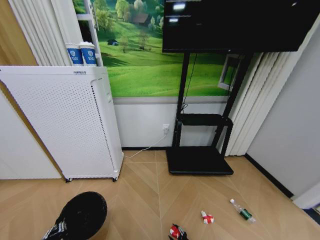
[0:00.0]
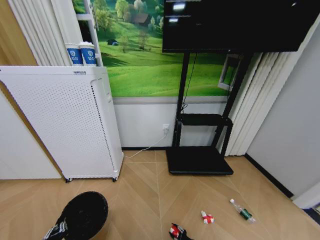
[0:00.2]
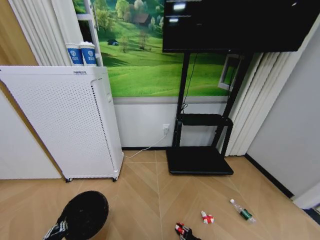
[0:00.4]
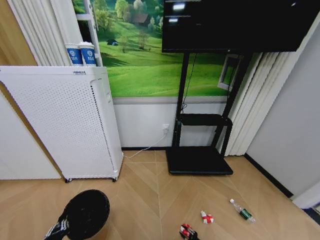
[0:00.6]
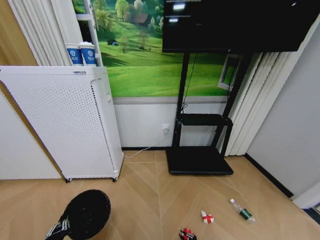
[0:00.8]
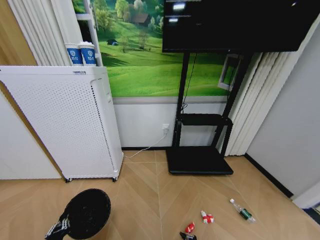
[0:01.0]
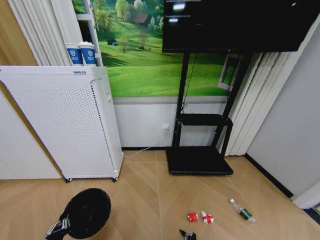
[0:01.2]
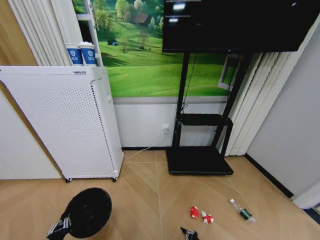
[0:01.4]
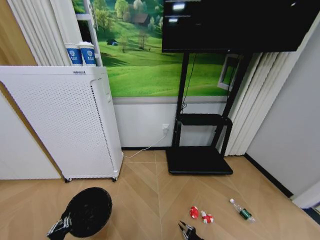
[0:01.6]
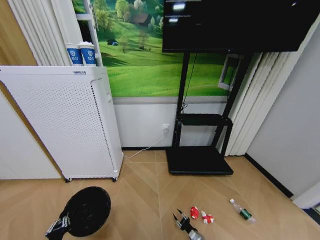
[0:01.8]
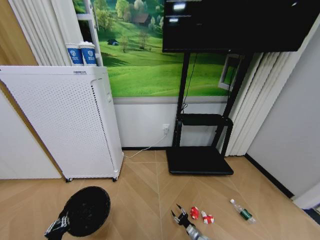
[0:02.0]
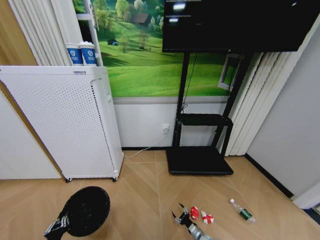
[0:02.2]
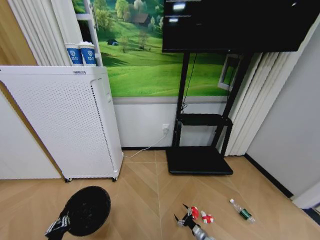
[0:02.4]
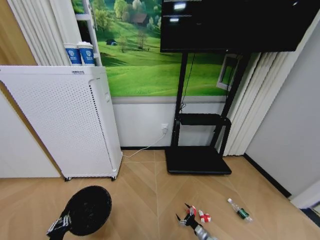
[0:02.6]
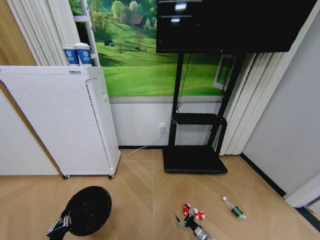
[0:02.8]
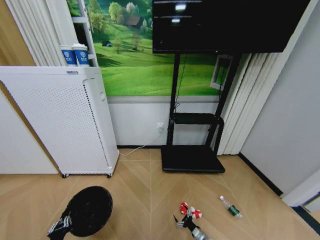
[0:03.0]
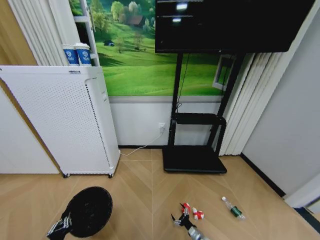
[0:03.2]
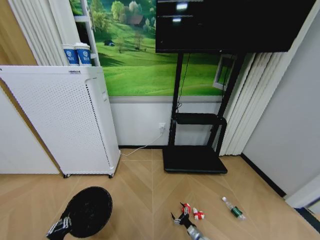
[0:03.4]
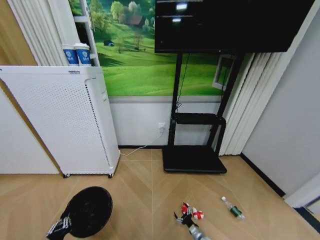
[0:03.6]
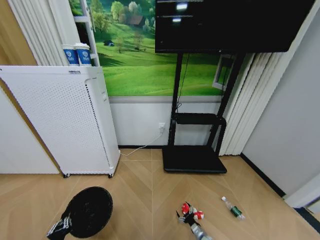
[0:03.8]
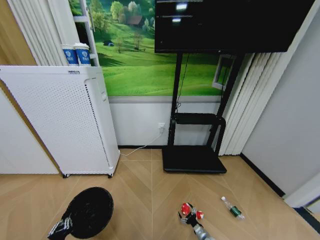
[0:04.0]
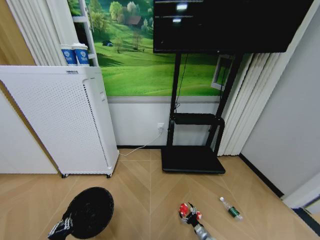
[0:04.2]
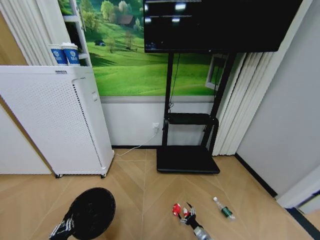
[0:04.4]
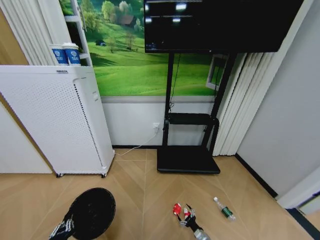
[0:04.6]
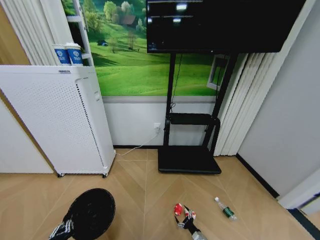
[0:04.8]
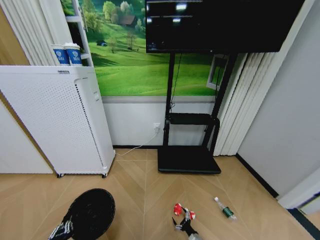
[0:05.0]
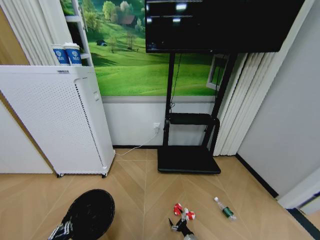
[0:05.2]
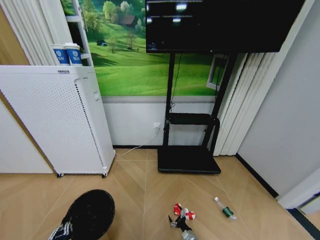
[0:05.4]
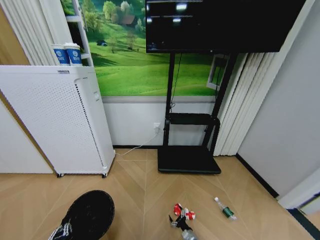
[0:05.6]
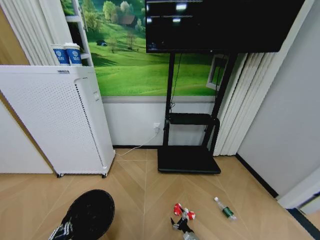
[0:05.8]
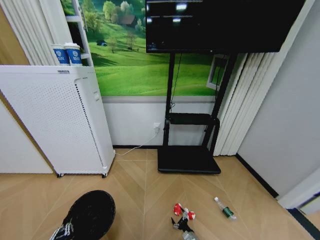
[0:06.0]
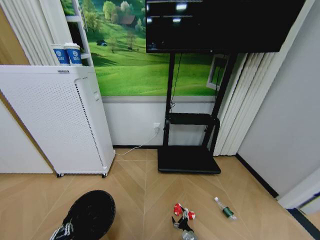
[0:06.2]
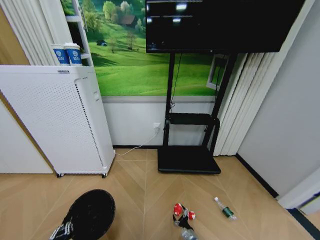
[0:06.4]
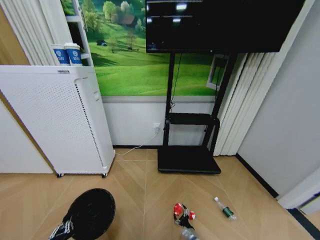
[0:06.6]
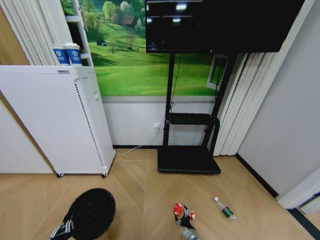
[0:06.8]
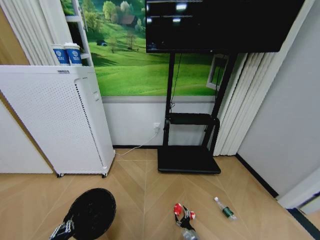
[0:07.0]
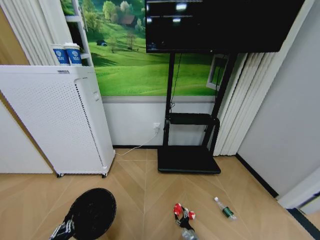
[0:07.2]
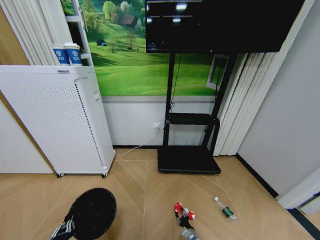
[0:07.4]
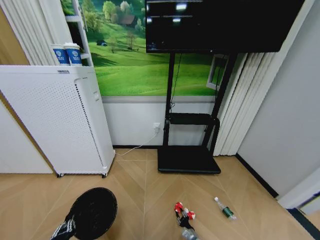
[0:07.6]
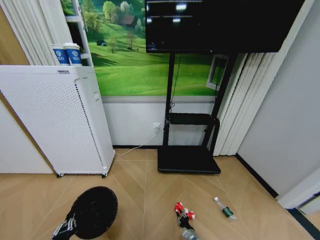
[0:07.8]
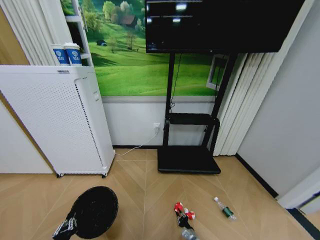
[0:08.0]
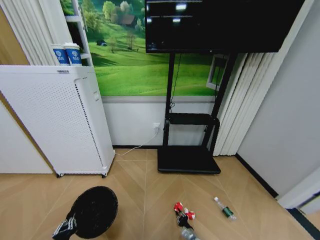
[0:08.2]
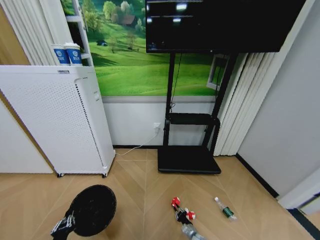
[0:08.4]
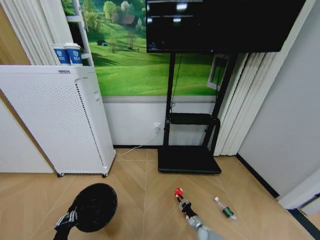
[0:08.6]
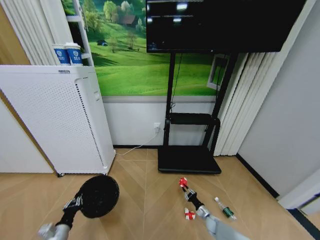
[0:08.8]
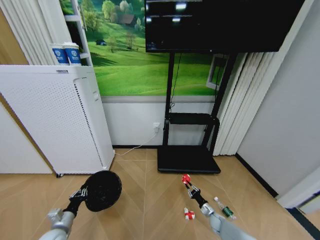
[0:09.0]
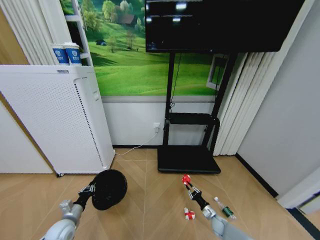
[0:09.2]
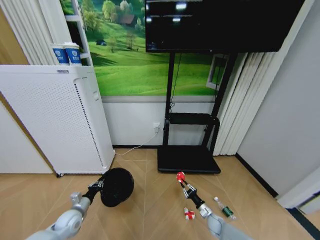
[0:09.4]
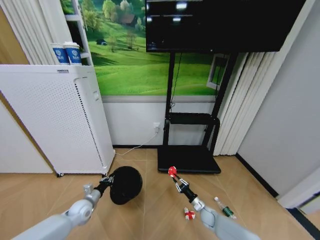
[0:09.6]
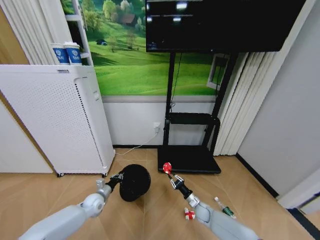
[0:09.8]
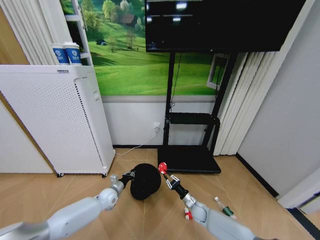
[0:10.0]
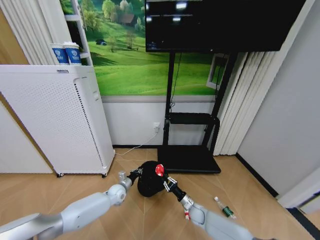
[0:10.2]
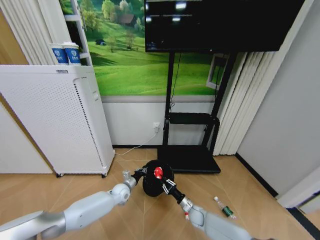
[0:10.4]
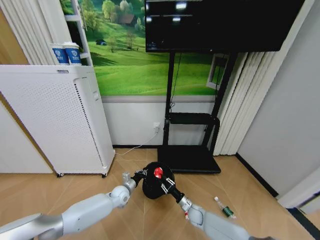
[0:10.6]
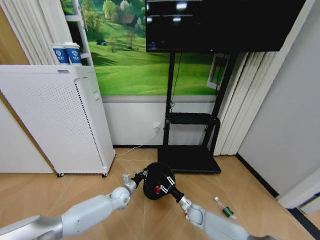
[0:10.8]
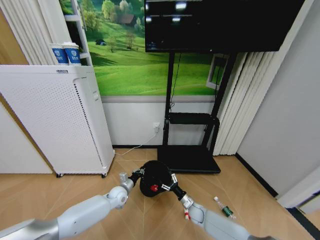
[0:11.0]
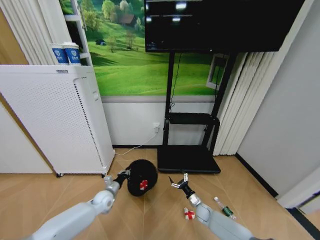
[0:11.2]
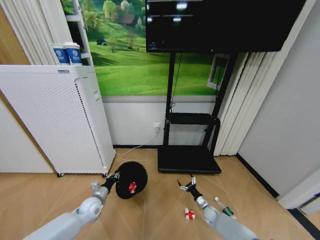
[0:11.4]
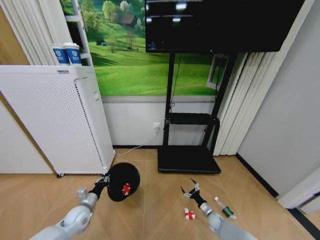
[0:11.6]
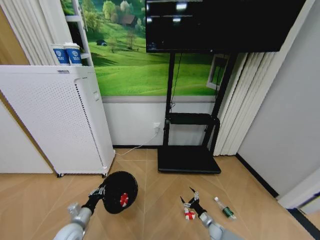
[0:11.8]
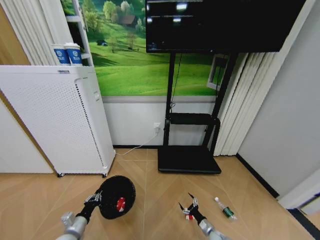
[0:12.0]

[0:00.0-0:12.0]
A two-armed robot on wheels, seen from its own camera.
Task of the whole recording: Pick up the trash bin and place the garbage on the floor into it.
0:00.0 to 0:01.6: The right gripper closes up.
0:01.6 to 0:03.0: The right gripper shifts some 5 cm forward, and opens up.
0:04.4 to 0:06.0: The right gripper is displaced to the left by approximately 5 cm.
0:06.0 to 0:07.6: The right gripper closes up.
0:07.6 to 0:09.0: The right gripper shifts roughly 20 cm to the right, forward and upward, and closes its fingers; the left gripper is displaced forward by approximately 15 cm.
0:09.0 to 0:10.4: The left gripper goes some 30 cm to the right and forward. The right gripper moves to the left and upward, some 15 cm.
0:10.4 to 0:12.0: The right gripper heads to the right, downward and backward, covering some 20 cm, and opens its fingers. The left gripper goes about 25 cm backward and to the left.

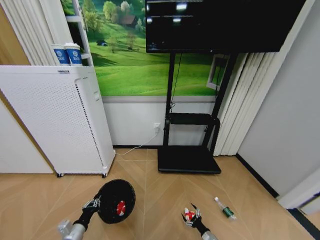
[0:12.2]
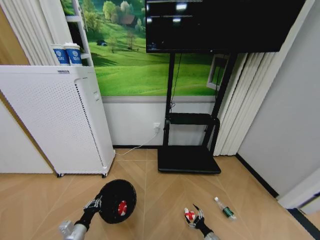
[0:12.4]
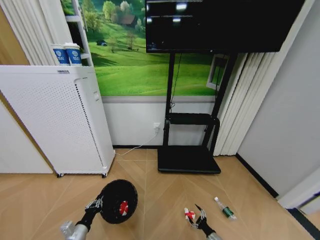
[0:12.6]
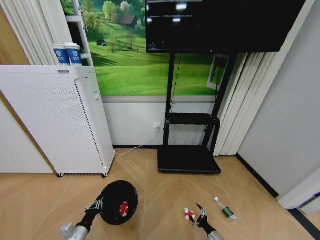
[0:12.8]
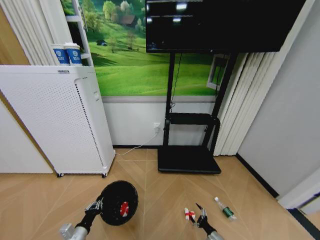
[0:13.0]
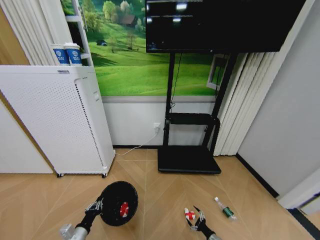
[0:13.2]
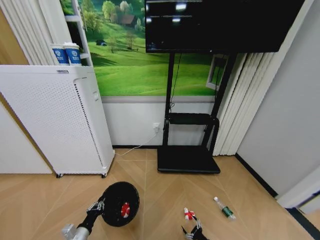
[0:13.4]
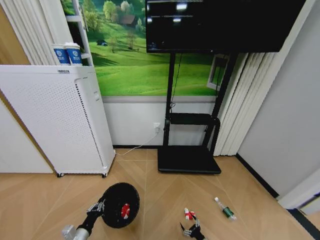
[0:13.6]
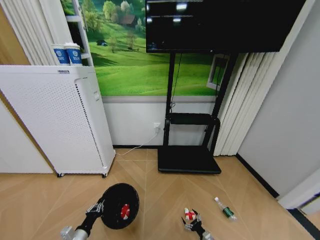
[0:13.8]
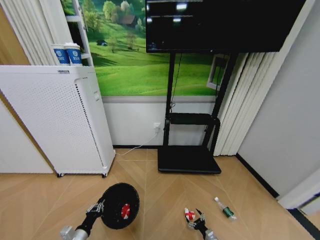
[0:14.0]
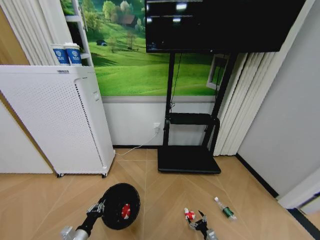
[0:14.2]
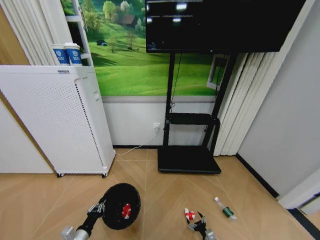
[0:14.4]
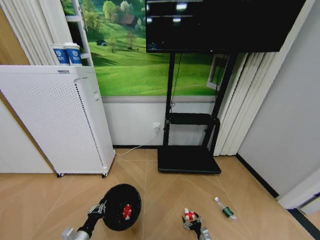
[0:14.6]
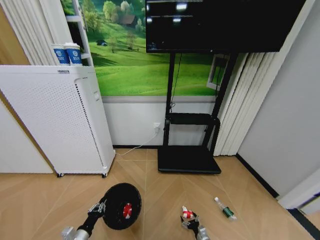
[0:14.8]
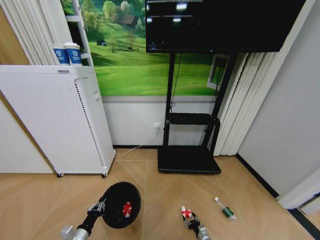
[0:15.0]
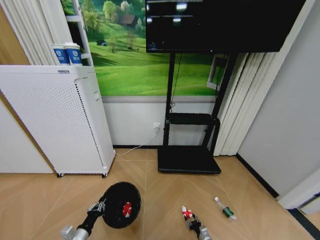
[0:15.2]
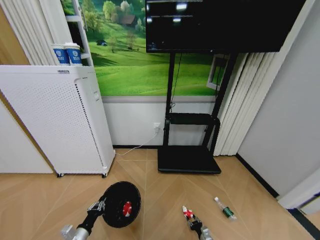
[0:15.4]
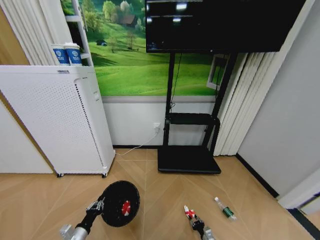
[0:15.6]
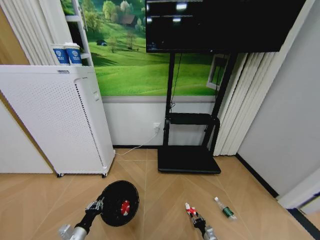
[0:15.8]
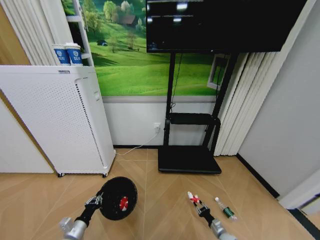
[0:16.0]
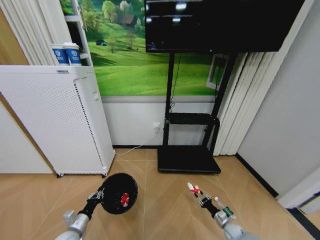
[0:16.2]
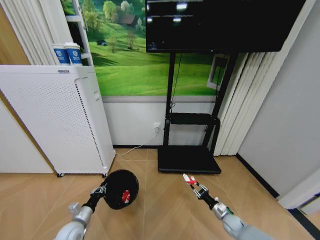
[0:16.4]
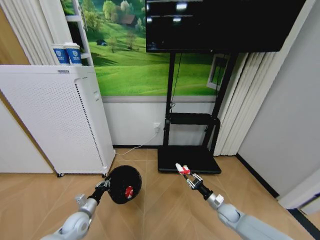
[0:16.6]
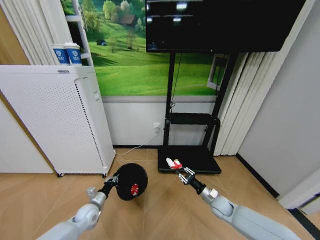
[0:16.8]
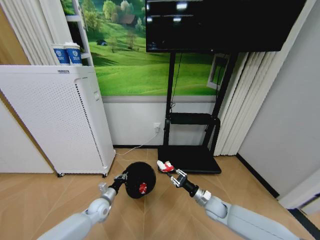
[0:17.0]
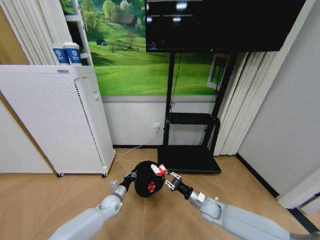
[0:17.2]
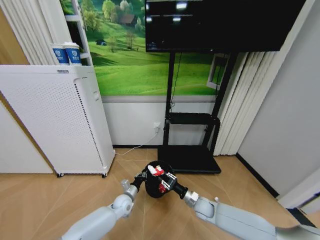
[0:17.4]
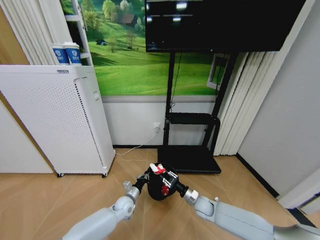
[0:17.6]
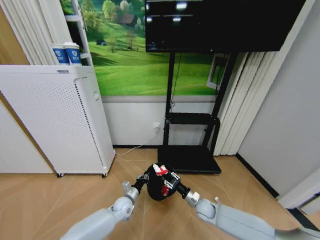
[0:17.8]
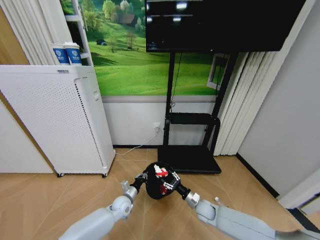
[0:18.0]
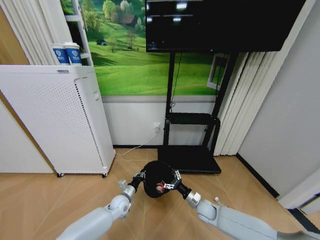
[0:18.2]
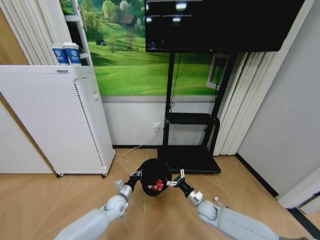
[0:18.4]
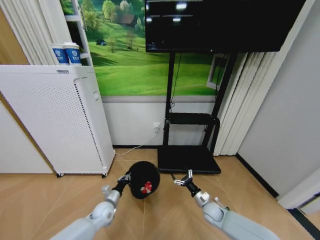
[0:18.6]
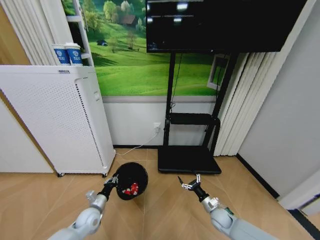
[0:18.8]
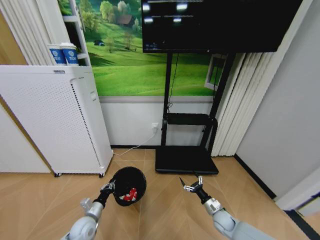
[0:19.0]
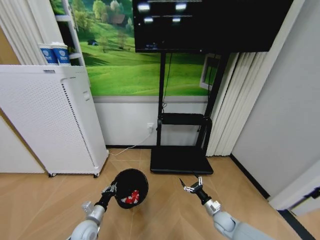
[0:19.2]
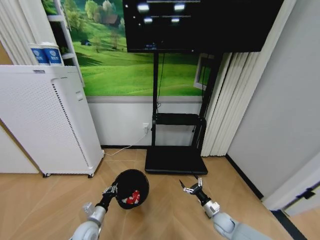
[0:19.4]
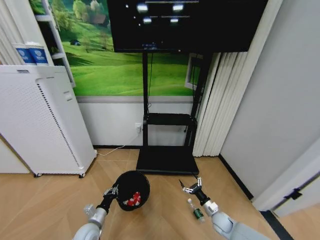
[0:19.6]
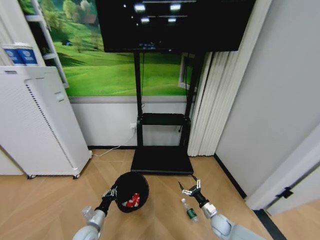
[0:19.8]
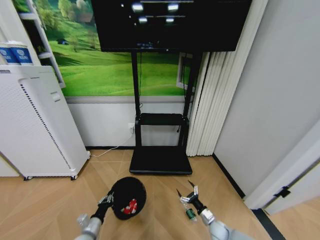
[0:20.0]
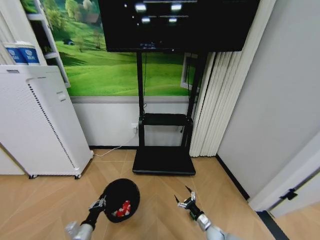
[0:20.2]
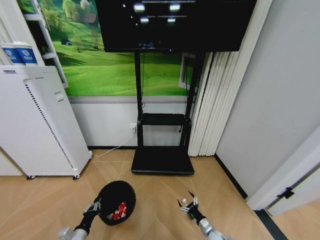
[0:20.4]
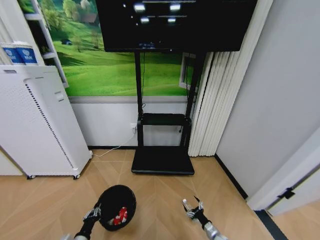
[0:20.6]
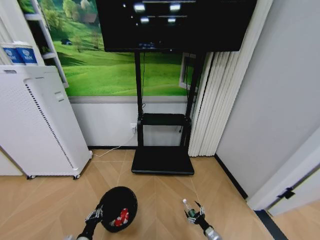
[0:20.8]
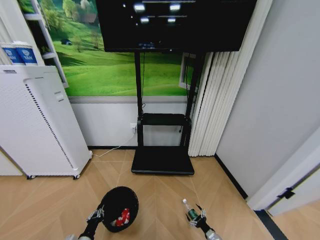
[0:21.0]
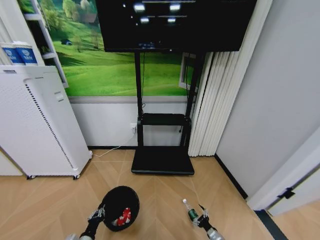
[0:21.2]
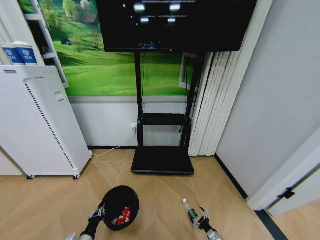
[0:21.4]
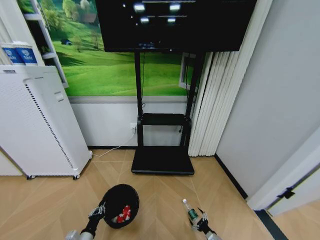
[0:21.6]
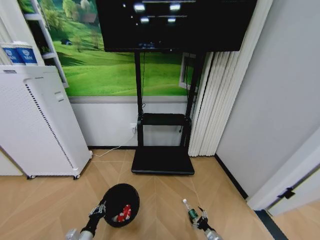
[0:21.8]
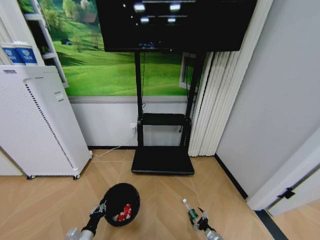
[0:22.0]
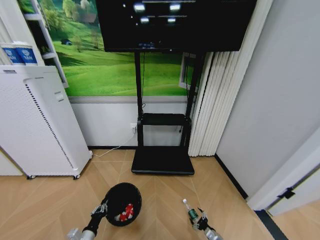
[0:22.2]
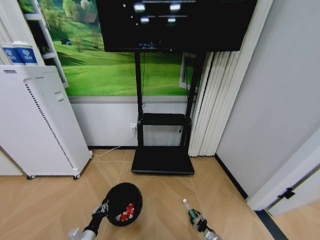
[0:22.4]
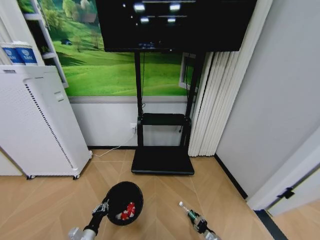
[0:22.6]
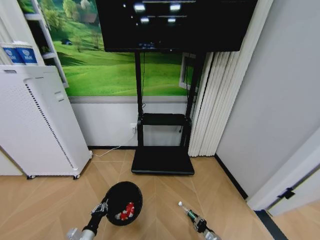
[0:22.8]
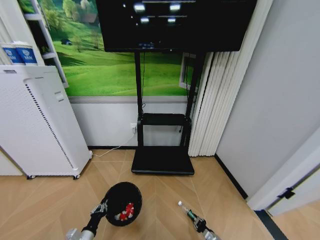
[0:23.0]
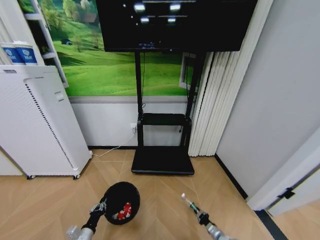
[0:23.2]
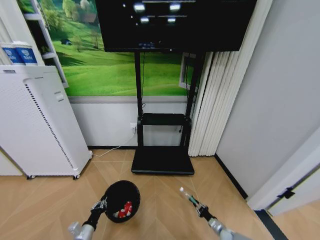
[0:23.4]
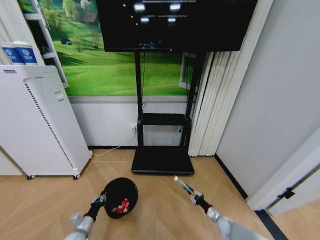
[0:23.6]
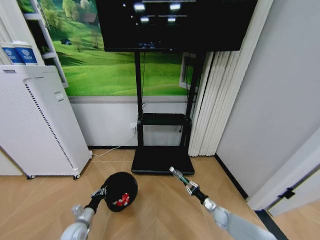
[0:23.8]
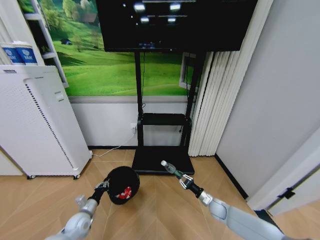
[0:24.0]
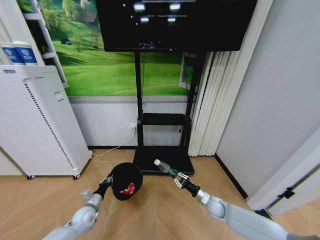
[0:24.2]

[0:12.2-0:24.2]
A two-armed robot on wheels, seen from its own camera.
Task of the whole recording: Pick up the trash bin and place the garbage on the floor into it.
0:13.8 to 0:15.2: The right gripper closes.
0:15.2 to 0:16.6: The left gripper travels forward by about 10 cm, while the right gripper is displaced upward and forward by approximately 25 cm, and closes its fingers.
0:16.6 to 0:18.2: The left gripper shifts some 20 cm to the right and forward. Meanwhile the right gripper shifts roughly 10 cm to the left, and opens its fingers.
0:18.2 to 0:19.8: The left gripper goes some 15 cm backward and to the left. The right gripper shifts some 10 cm to the right and downward.
0:19.8 to 0:21.2: The right gripper shifts about 15 cm downward and backward. Meanwhile the left gripper is displaced backward by approximately 10 cm.
0:21.2 to 0:22.6: The right gripper closes up.
0:22.6 to 0:24.2: The right gripper goes about 25 cm upward and forward, and closes up. The left gripper heads forward, covering about 15 cm.
